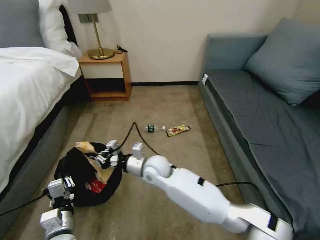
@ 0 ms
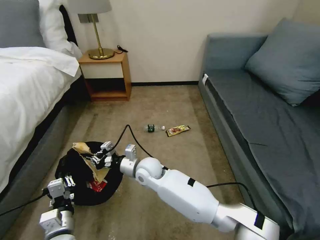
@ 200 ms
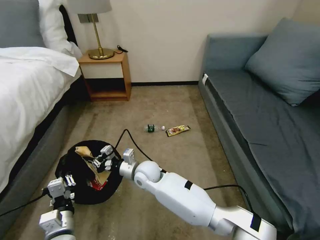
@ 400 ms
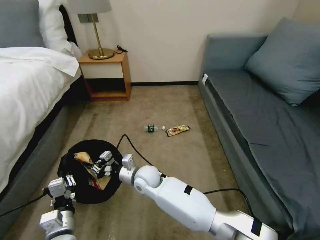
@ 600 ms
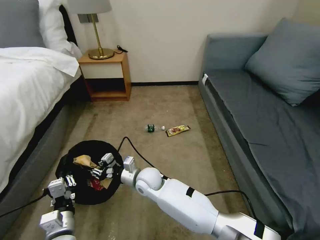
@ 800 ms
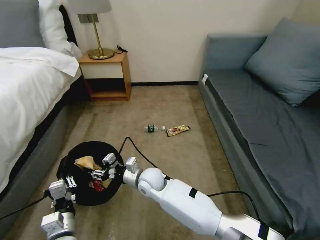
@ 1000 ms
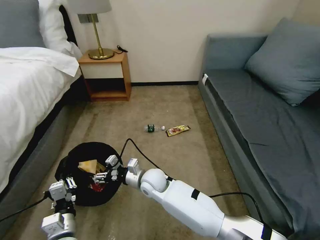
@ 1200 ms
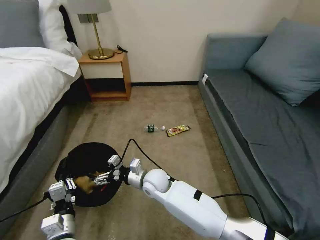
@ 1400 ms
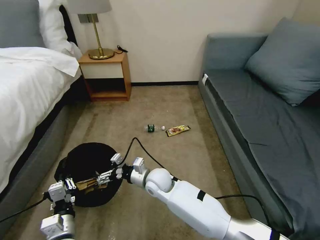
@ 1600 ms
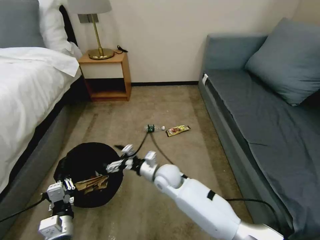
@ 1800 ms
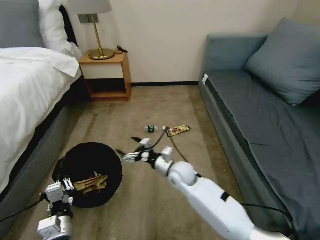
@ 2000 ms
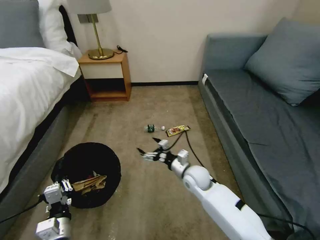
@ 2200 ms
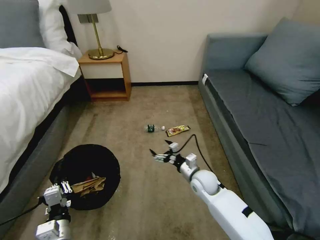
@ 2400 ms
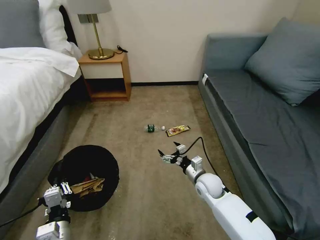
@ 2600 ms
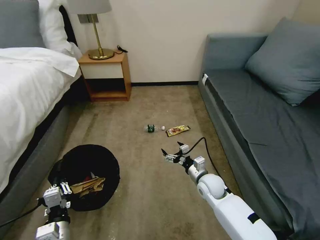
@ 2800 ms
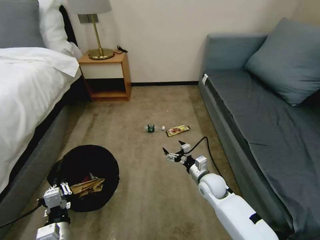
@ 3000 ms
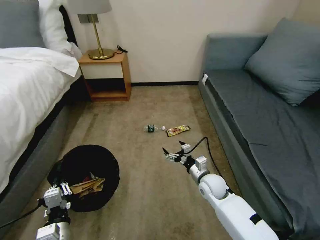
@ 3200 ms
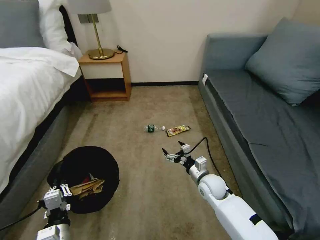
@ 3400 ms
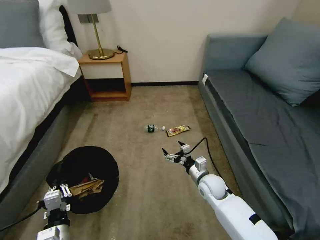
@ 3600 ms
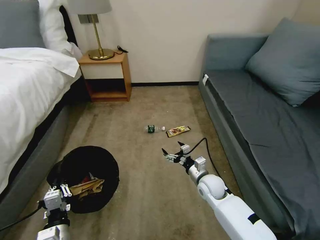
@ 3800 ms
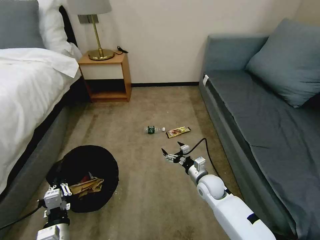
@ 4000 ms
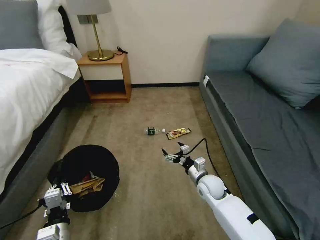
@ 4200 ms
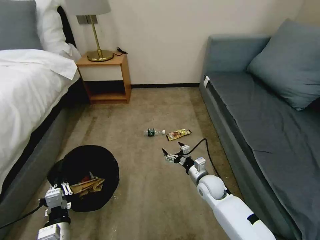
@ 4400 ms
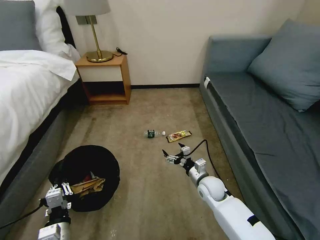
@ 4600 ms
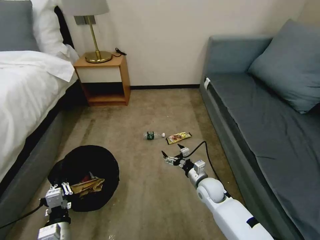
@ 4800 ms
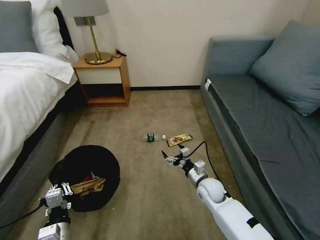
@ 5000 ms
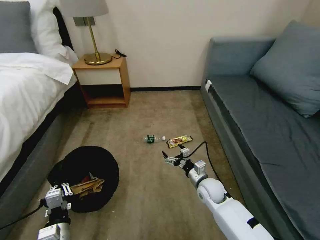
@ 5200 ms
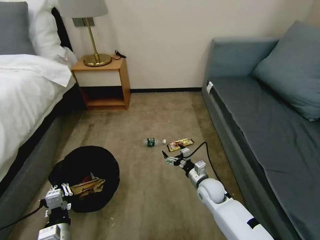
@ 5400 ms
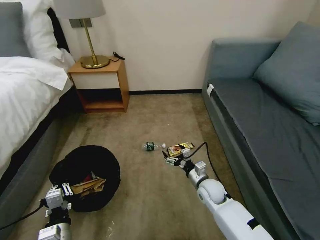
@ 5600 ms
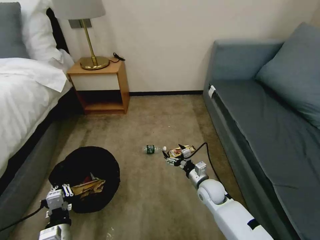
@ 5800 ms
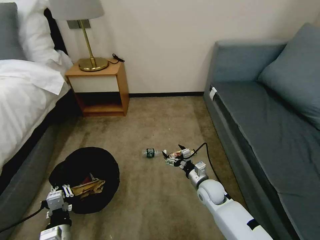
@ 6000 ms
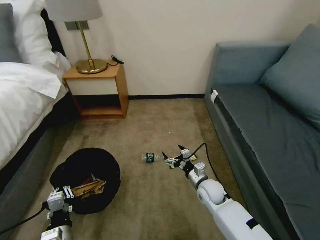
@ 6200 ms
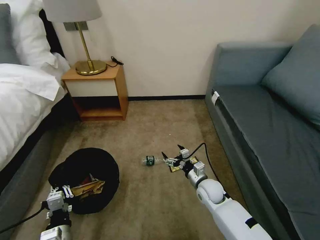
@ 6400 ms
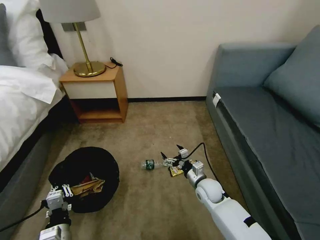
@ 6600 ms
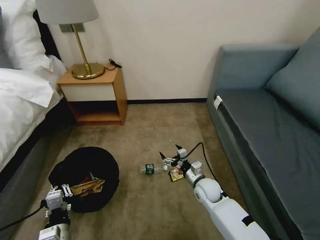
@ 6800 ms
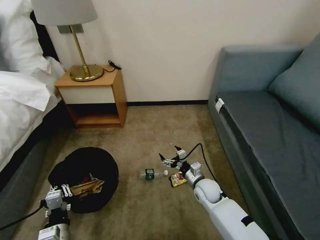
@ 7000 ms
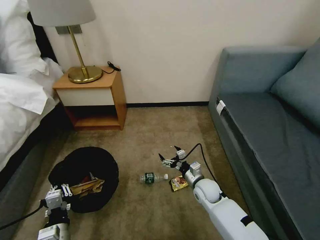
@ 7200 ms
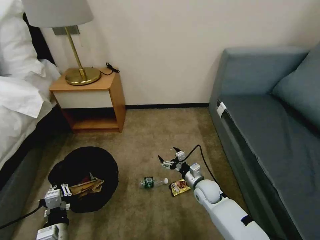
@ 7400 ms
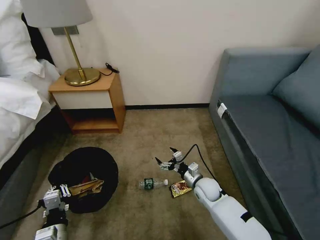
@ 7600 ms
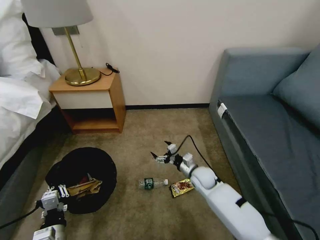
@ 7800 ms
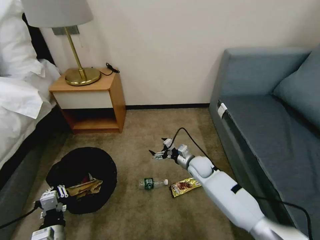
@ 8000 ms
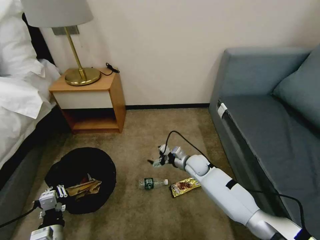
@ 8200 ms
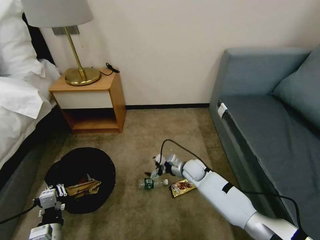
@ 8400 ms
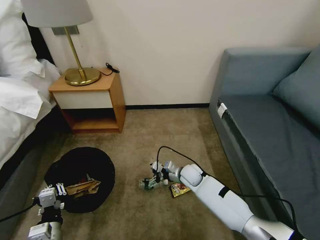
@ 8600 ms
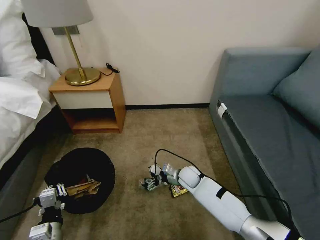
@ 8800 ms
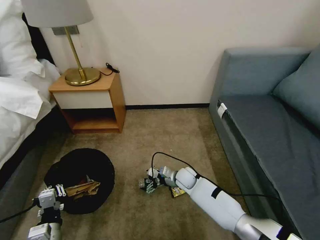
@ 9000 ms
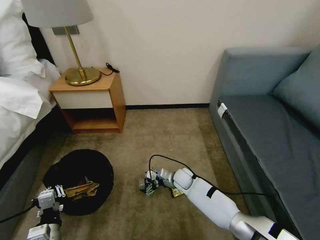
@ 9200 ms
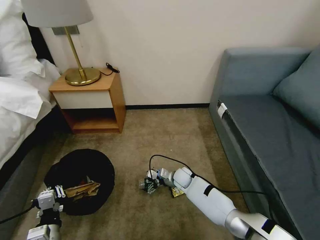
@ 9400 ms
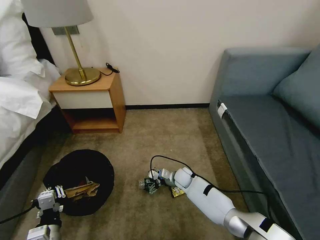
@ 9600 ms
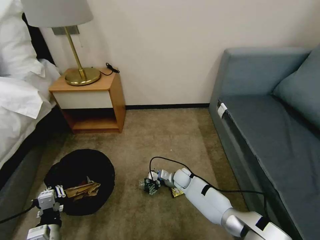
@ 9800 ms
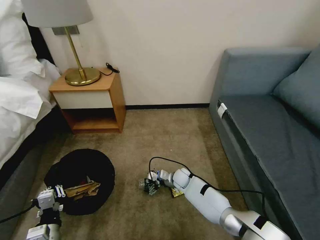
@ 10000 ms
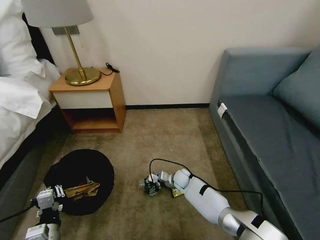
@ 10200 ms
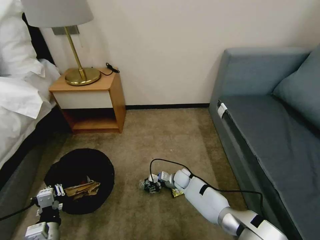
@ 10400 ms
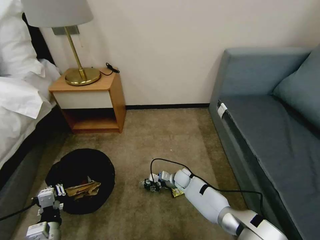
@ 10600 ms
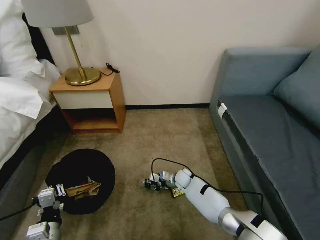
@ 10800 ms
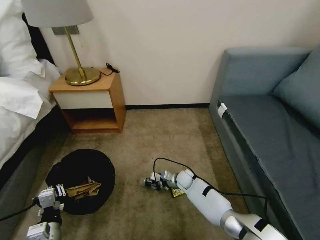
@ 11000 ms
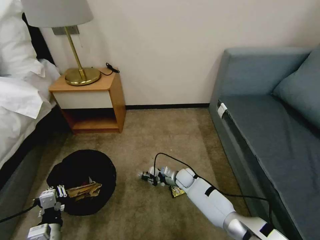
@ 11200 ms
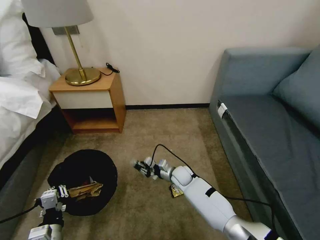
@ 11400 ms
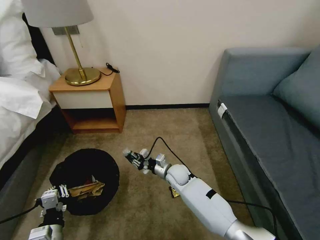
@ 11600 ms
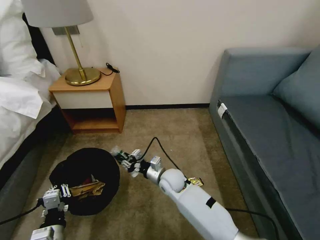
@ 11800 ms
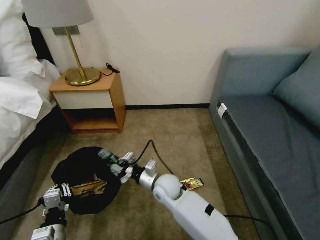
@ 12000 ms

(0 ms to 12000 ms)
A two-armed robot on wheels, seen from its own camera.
Task of the whole recording: Pick up the trash bin, then pick up the garbage on the floor and place it into the trash bin.
0 ms - 1600 ms: The right gripper is displaced downward by approximately 5 cm, and opens.
1600 ms - 3000 ms: The right gripper heads to the right, covering roughly 20 cm.
3000 ms - 4400 ms: Both grippers stay put.
7600 ms - 9000 ms: The right gripper heads to the left and forward, covering about 10 cm.
9000 ms - 10400 ms: The right gripper moves downward, roughly 5 cm, and closes.
10400 ms - 12000 ms: The right gripper moves upward, backward and to the left, approximately 20 cm, and closes its fingers.

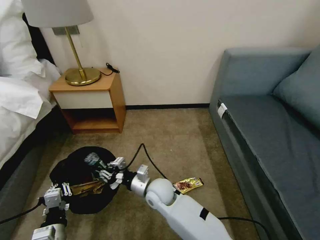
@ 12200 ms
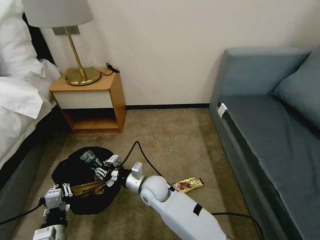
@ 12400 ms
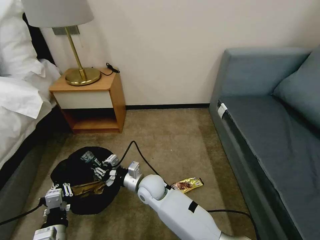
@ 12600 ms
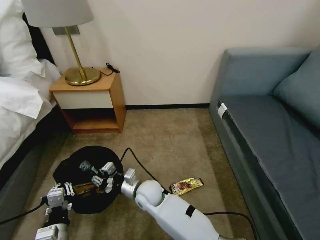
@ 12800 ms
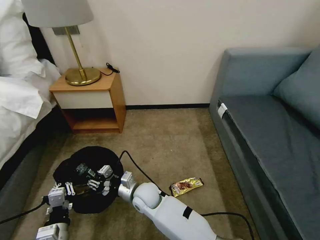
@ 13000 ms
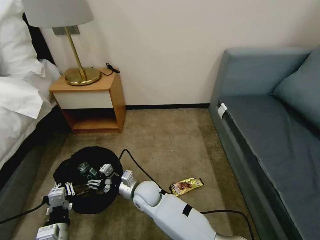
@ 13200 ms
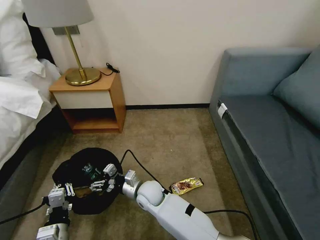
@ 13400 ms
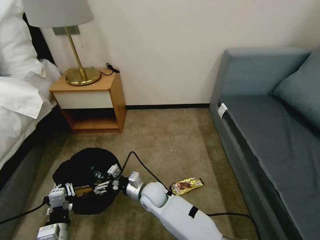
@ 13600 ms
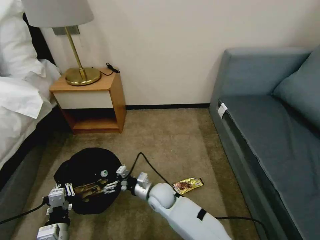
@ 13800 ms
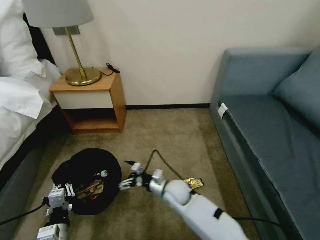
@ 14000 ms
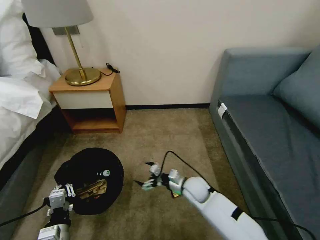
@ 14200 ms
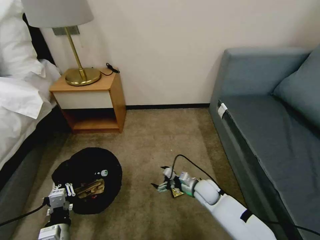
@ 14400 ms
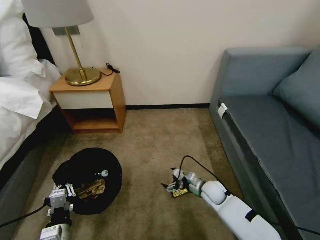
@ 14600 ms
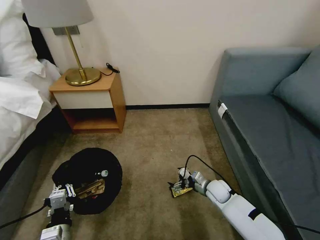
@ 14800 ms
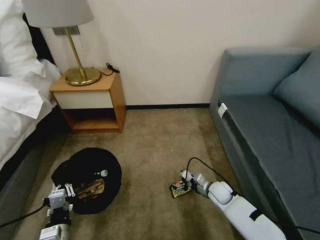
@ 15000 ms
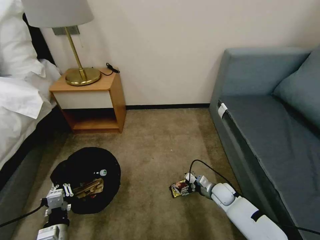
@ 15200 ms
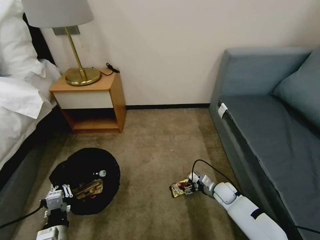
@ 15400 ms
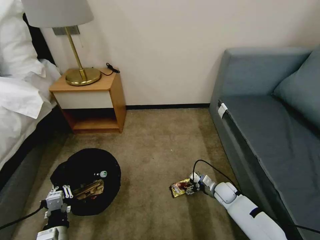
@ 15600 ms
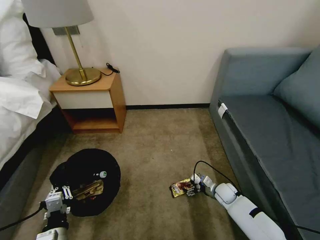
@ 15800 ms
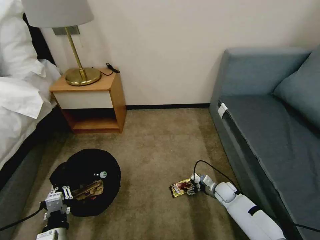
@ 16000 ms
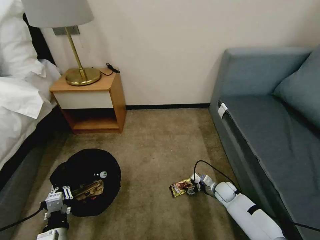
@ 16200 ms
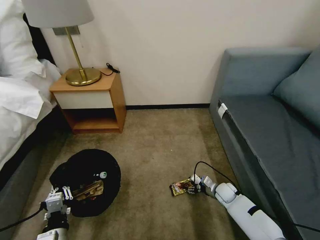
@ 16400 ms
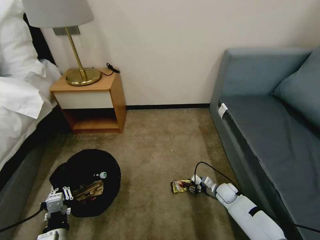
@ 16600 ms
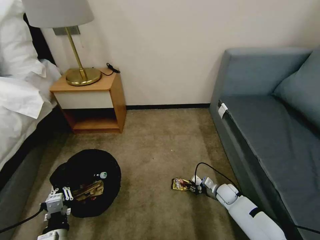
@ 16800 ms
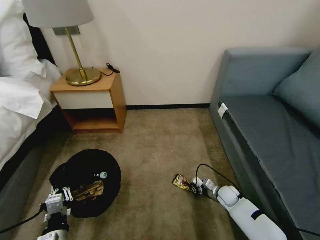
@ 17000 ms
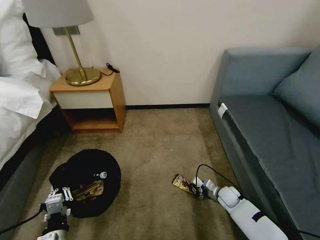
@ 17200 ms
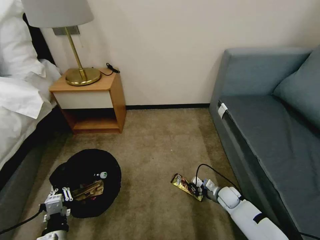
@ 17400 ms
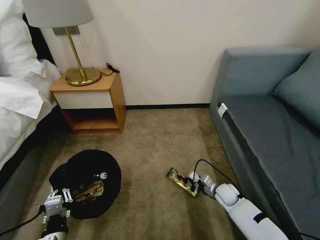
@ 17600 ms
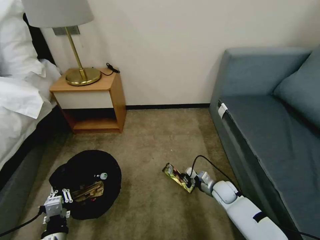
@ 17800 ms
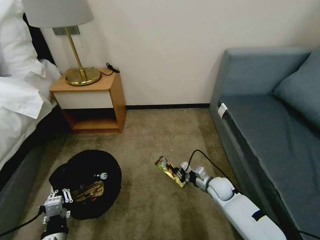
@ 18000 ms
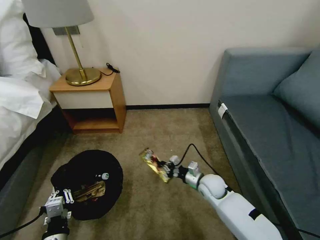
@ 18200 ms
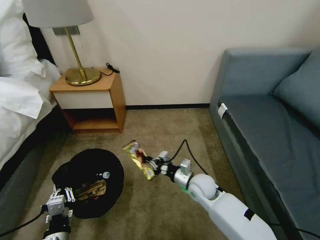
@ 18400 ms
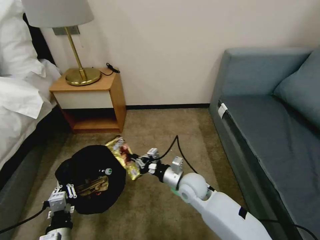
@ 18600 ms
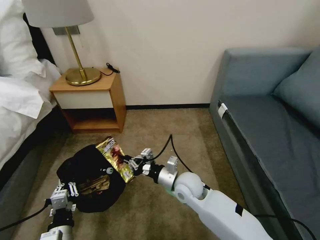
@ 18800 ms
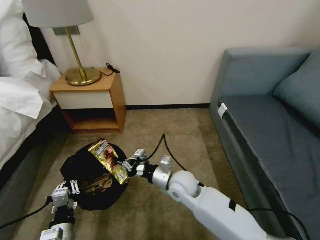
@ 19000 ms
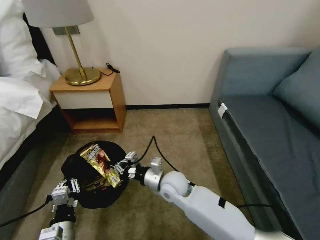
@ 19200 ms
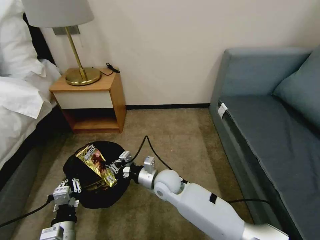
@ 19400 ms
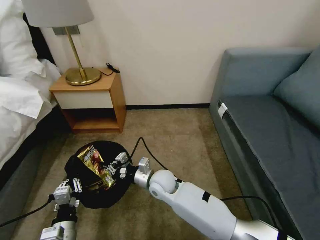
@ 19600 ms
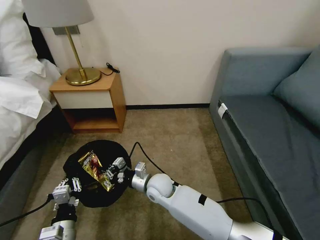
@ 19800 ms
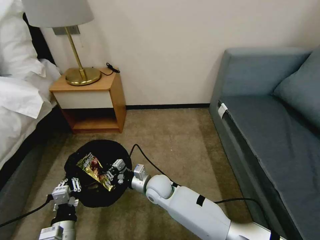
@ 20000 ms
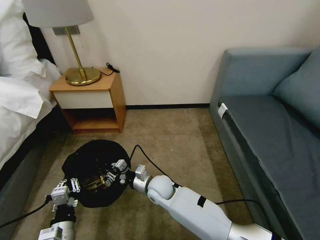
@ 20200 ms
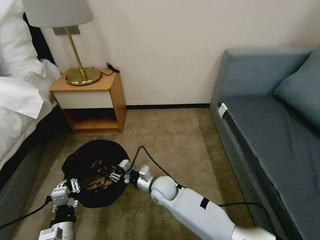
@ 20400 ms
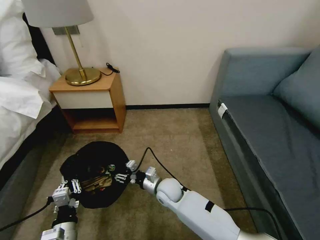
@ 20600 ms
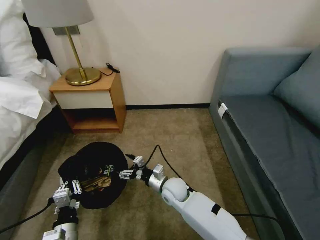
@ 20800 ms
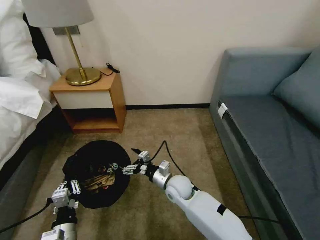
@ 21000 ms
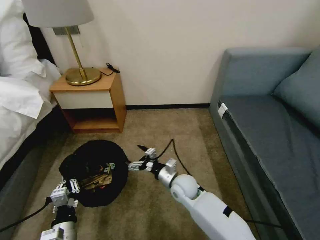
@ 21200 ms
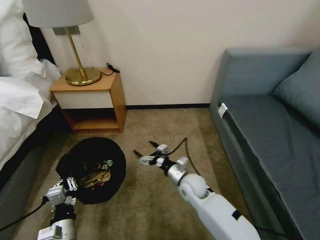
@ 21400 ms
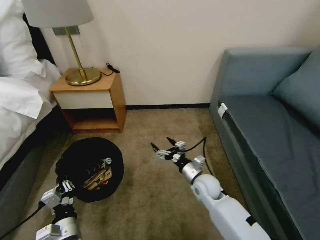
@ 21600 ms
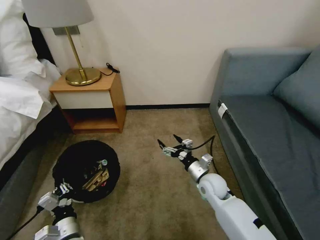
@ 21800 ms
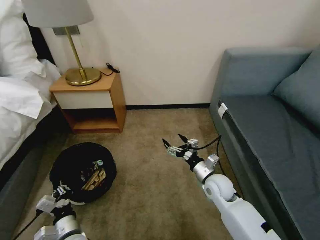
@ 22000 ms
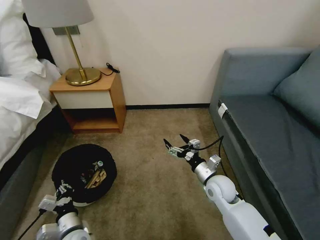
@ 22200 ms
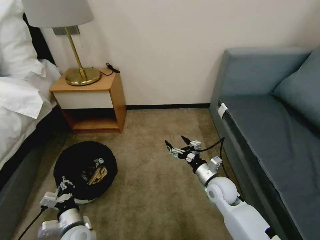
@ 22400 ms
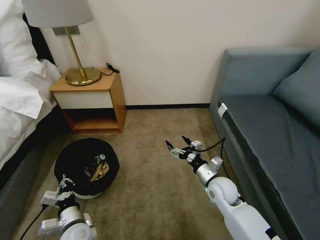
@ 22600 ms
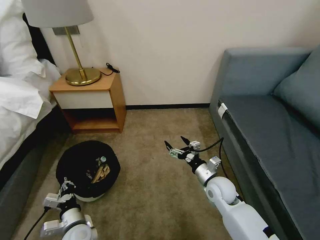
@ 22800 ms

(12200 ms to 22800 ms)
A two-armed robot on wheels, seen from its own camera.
Task of the whole recording: Pick up the trash bin, then pick up the garbage on the floor and place it into the trash bin.
12200 ms - 13800 ms: The right gripper heads downward, covering about 5 cm, and opens its fingers.
13800 ms - 15200 ms: The right gripper goes about 30 cm to the right.
15200 ms - 16800 ms: The right gripper shifts by roughly 5 cm, and closes its fingers.
16800 ms - 18200 ms: The right gripper moves upward and to the left, about 15 cm.
18200 ms - 19800 ms: The right gripper is displaced to the left by about 20 cm.
19800 ms - 21200 ms: The right gripper is displaced to the right by roughly 10 cm, and opens.
21200 ms - 22800 ms: The right gripper shifts roughly 15 cm to the right, while the left gripper heads forward and downward, covering roughly 10 cm.
